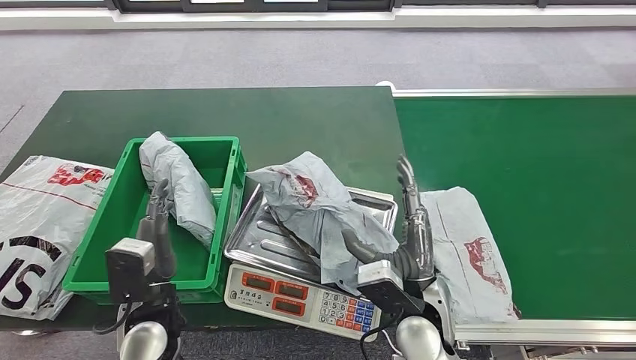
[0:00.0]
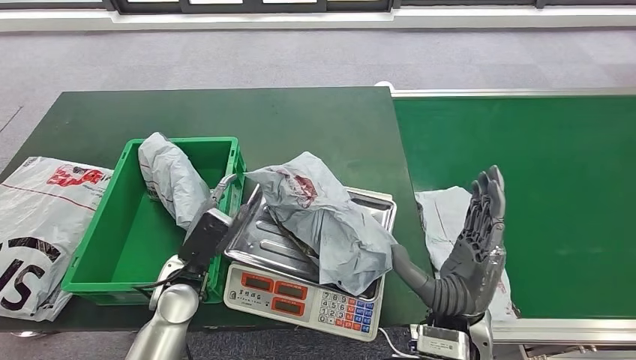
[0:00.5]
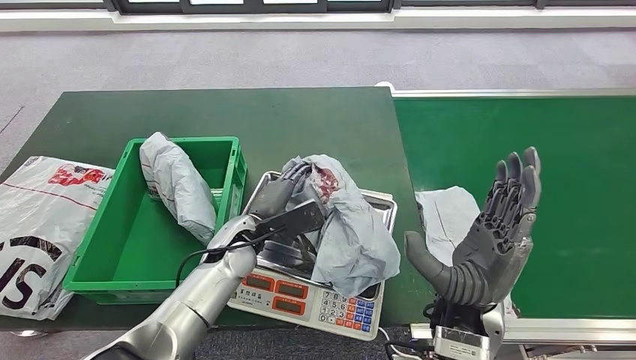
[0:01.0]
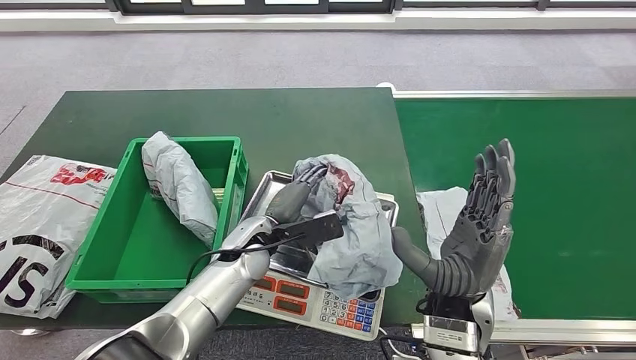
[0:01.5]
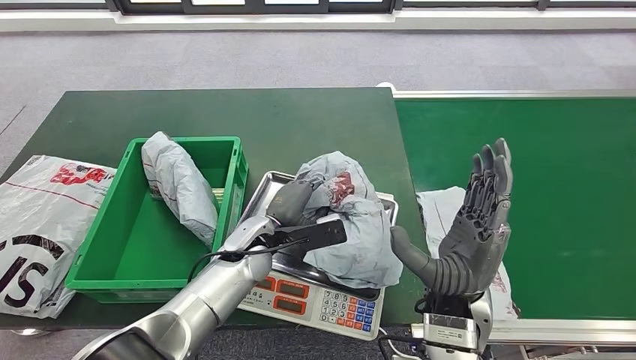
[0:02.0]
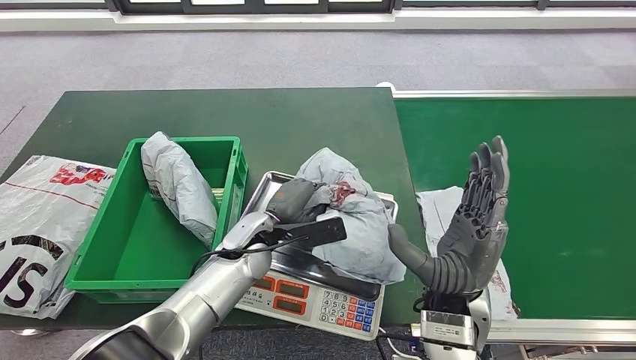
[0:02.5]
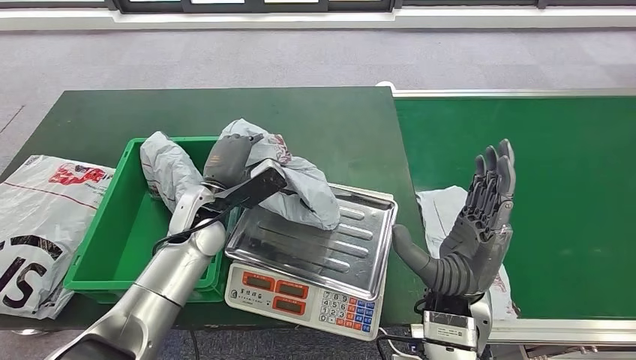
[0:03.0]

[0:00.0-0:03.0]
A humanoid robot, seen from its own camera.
Step, 0:00.0 to 0:03.0: Pick up the package from the inbound machine.
